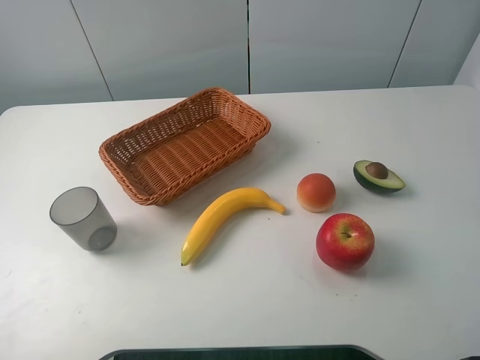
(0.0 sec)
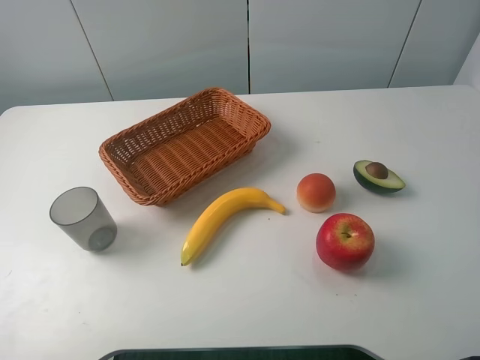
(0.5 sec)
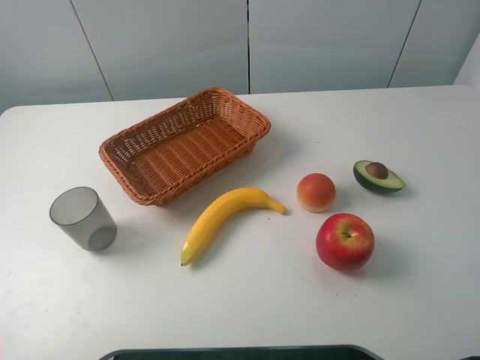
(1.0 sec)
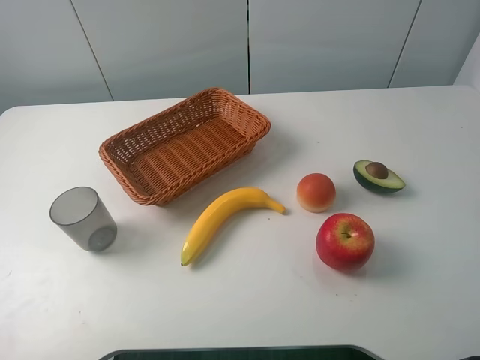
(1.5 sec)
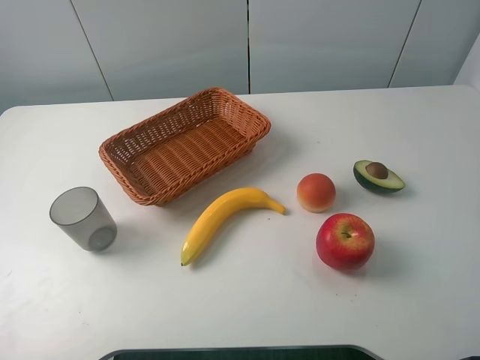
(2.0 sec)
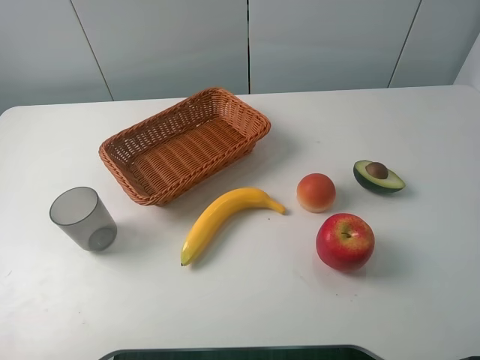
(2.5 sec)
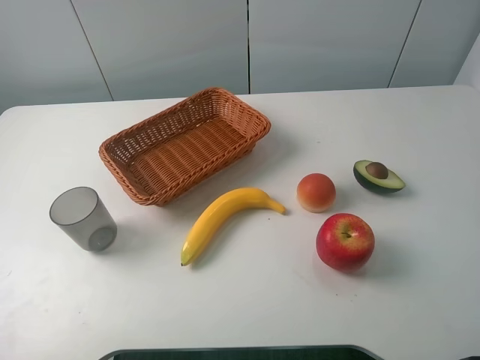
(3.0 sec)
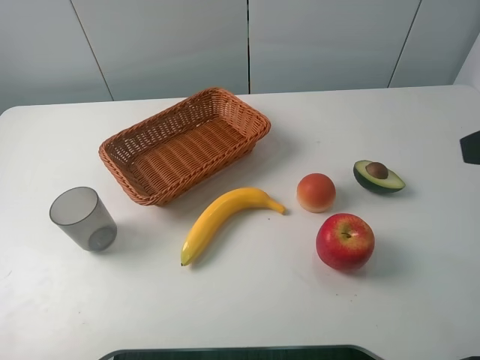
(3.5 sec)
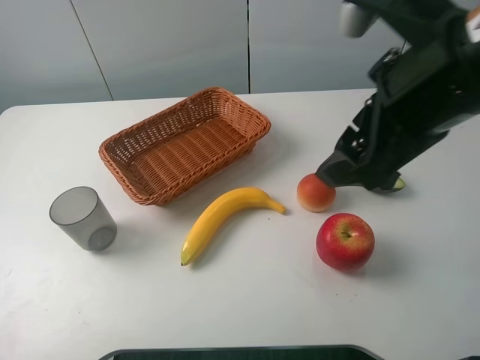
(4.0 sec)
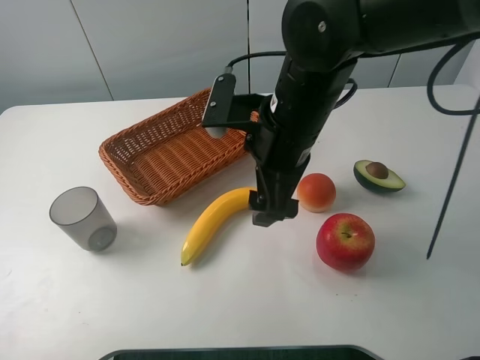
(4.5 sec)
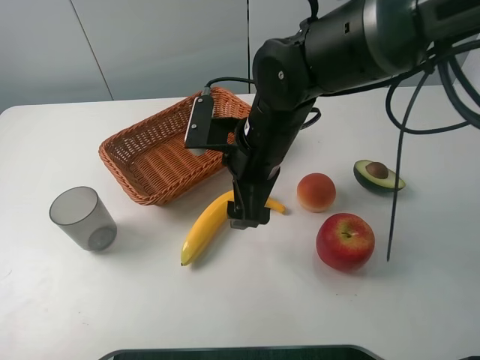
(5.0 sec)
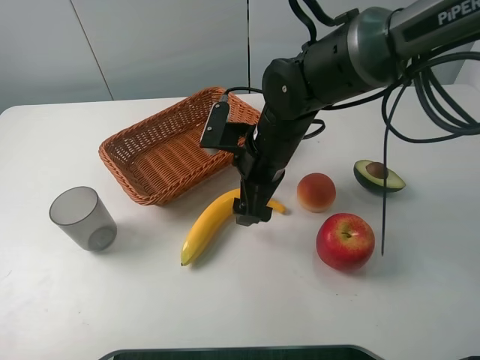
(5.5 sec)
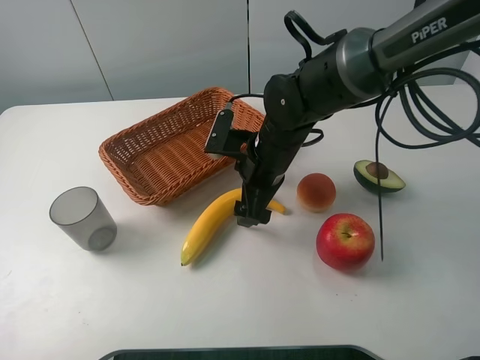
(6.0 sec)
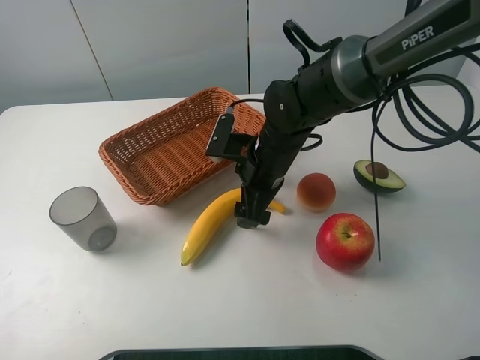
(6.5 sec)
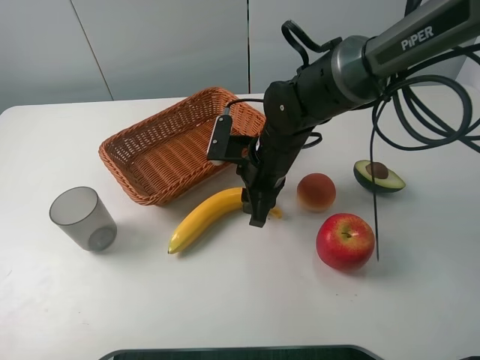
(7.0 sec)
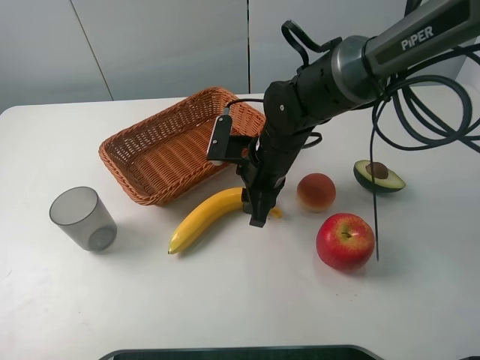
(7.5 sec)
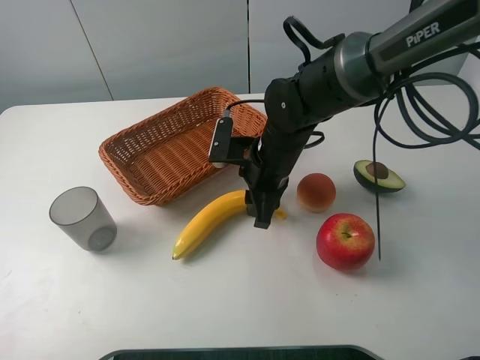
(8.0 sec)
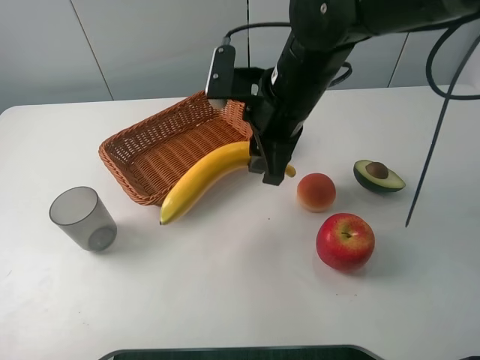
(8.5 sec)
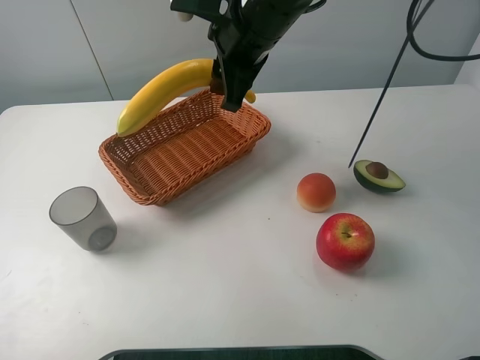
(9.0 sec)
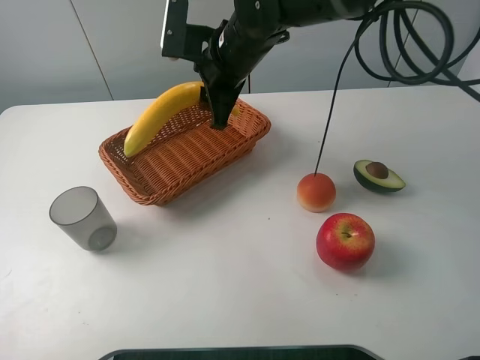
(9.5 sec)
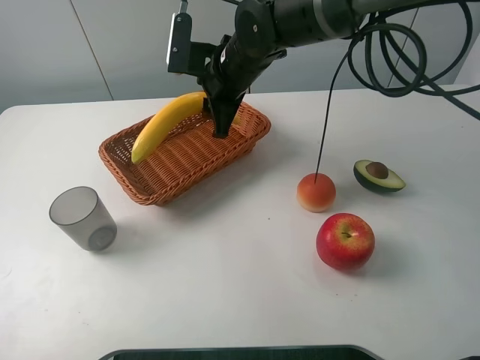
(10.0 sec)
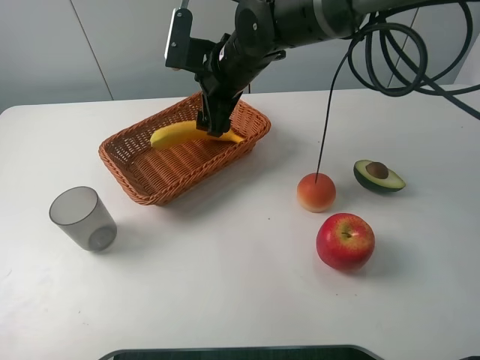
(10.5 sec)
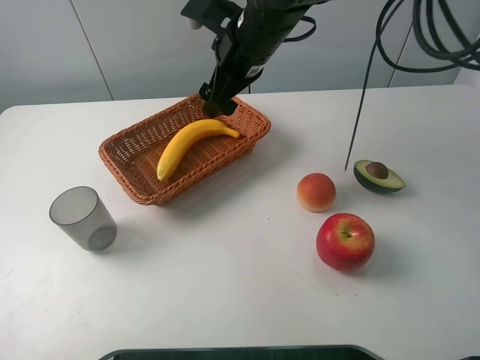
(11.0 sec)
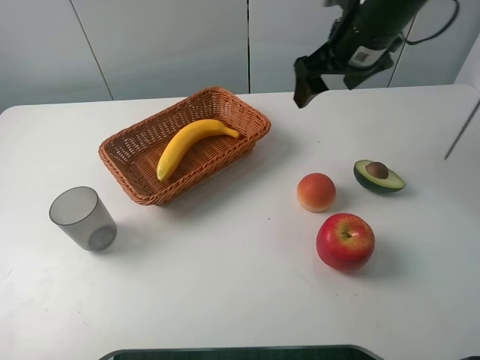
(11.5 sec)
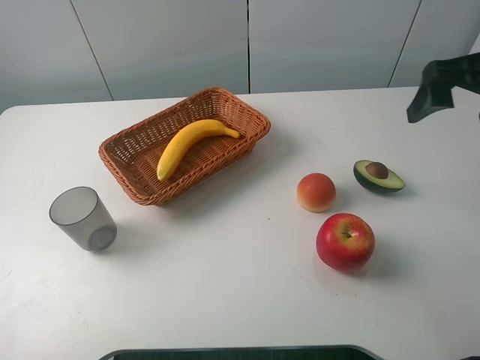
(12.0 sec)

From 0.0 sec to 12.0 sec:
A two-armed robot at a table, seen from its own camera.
Task of the whole recording: randomly pick up an item from the table and put it in the basket.
Step, from 0.0 sec to 6.5 sec: Grasp the banana with the right gripper.
Step, from 7.0 sec to 11.0 sec: Place the banana into the basket with the right gripper.
From 0.0 sec to 2.0 sec: The two grippers keep their place.
From 2.0 sec to 4.0 sec: The right gripper travels forward and to the left by about 25 cm.
From 4.0 sec to 6.0 sec: The right gripper shifts approximately 25 cm downward, forward and to the left.
From 6.0 sec to 8.0 sec: The right gripper closes.
From 8.0 sec to 10.0 sec: The right gripper shifts roughly 10 cm forward, upward and to the left.
From 10.0 sec to 12.0 sec: The right gripper goes some 30 cm to the right and backward, and opens.

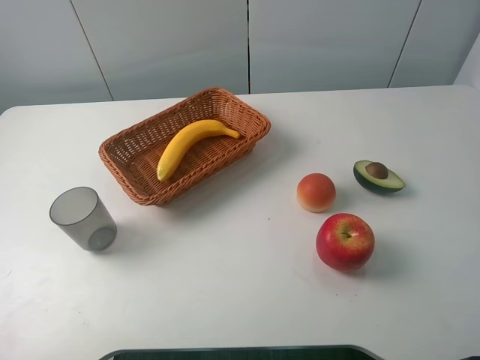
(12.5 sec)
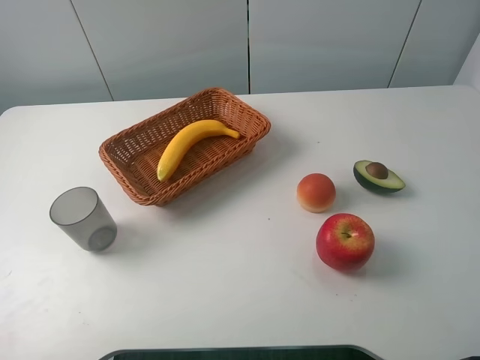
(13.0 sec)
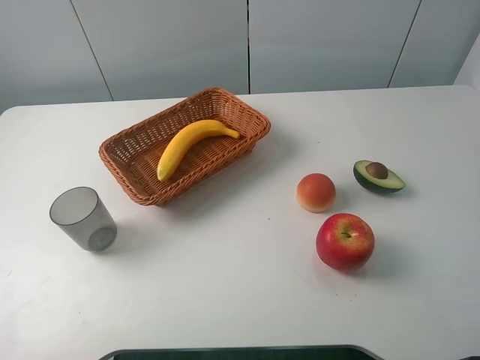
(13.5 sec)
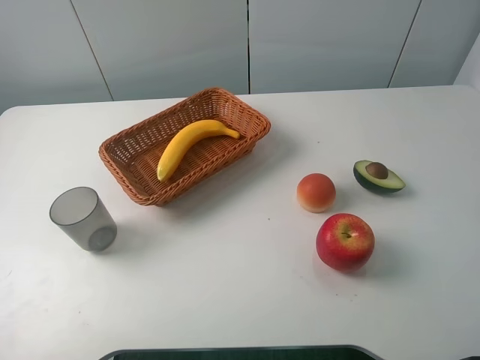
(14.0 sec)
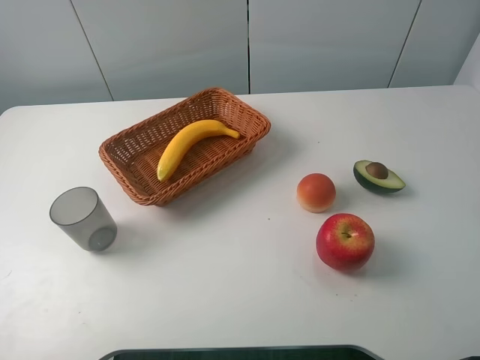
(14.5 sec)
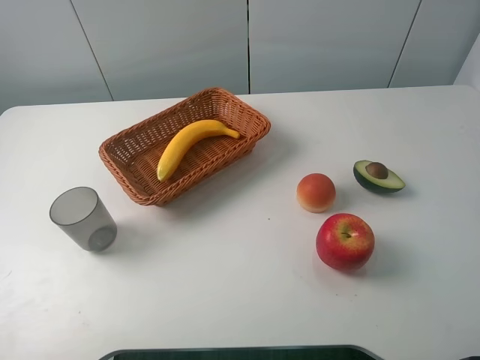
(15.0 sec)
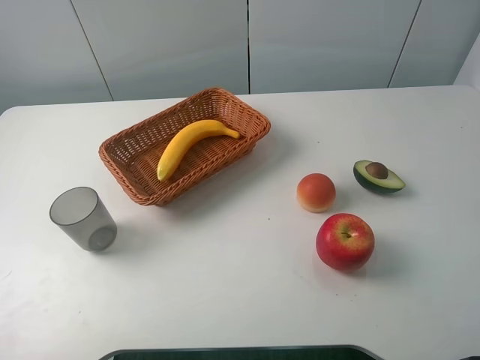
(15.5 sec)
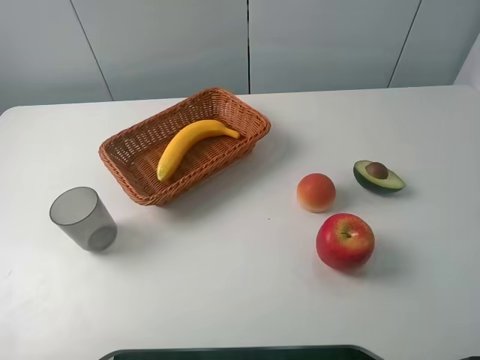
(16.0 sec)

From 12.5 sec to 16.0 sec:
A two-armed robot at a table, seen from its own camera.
Task of the whole recording: randomly pick up an item from the table and put it in the basket.
From 14.5 sec to 16.0 sec: The two grippers keep their place.
